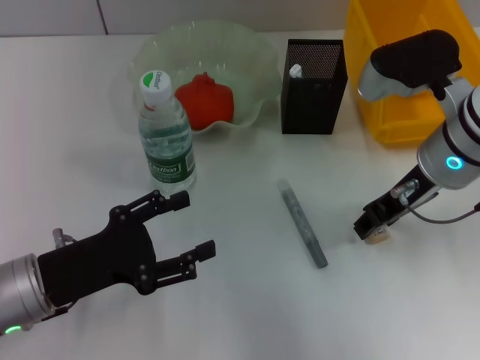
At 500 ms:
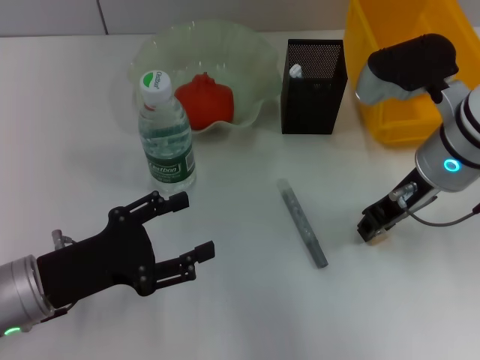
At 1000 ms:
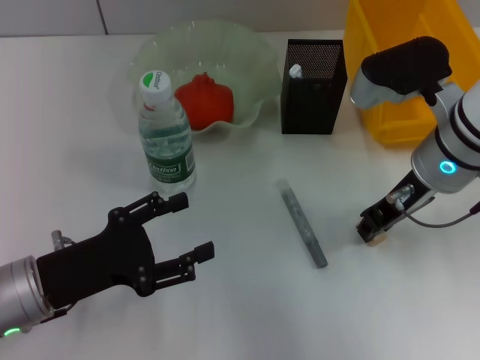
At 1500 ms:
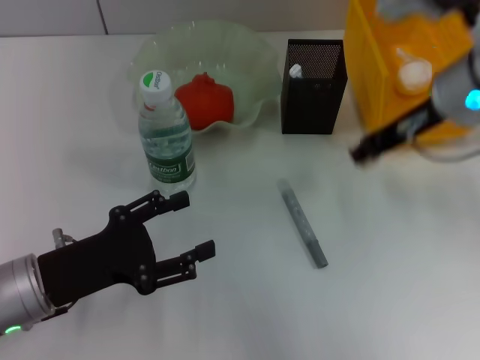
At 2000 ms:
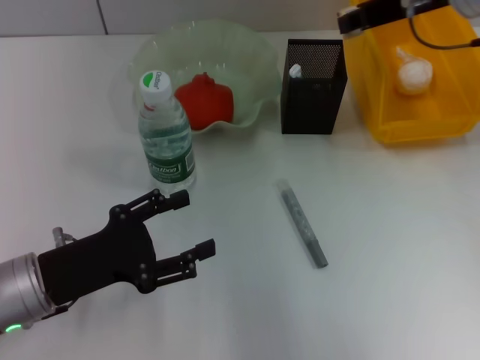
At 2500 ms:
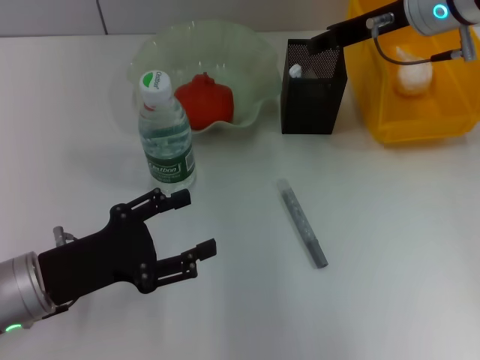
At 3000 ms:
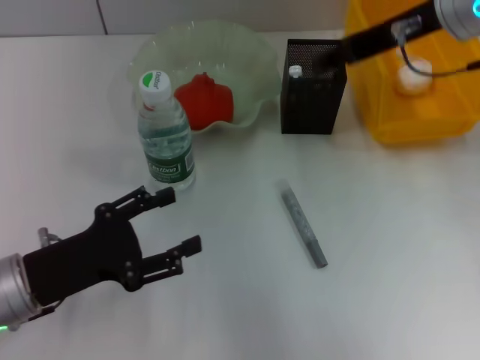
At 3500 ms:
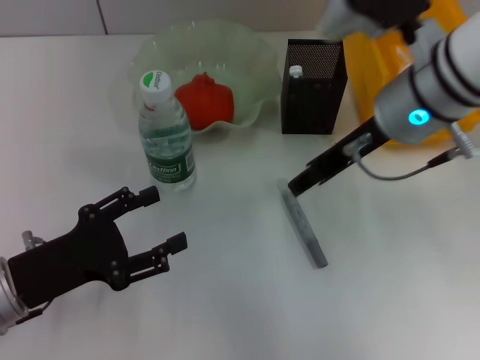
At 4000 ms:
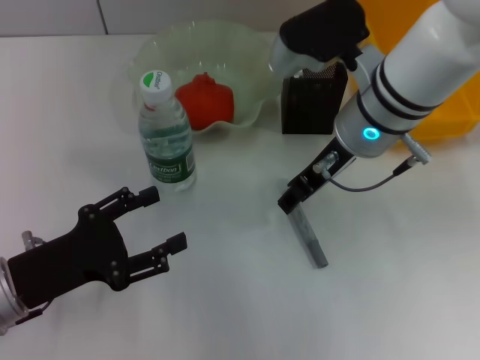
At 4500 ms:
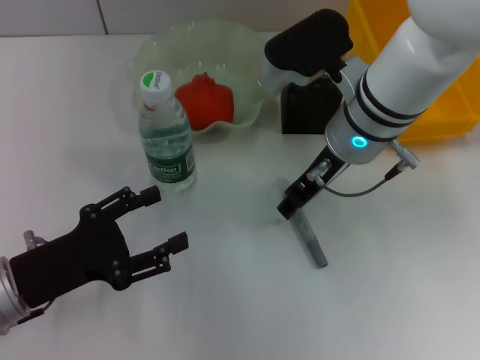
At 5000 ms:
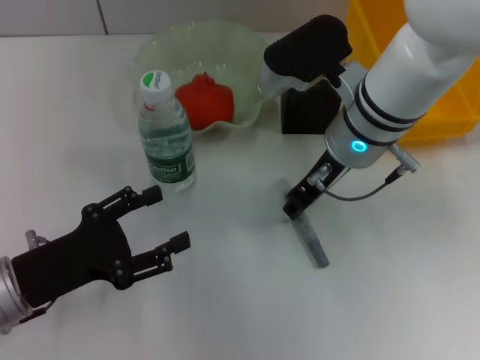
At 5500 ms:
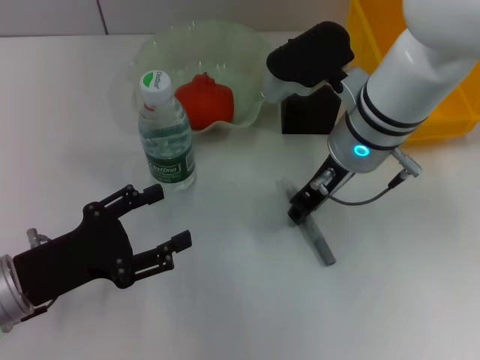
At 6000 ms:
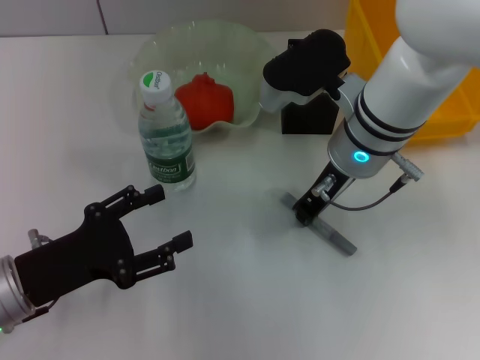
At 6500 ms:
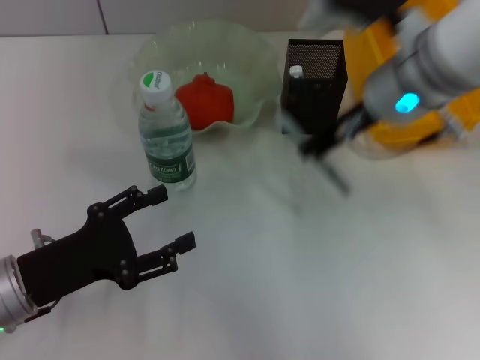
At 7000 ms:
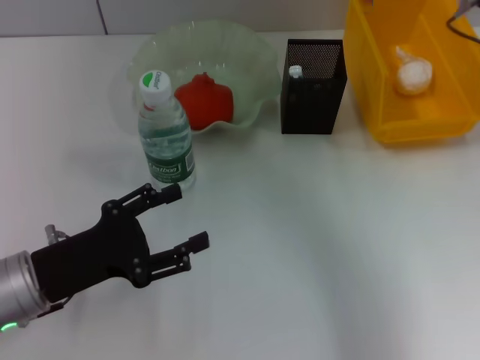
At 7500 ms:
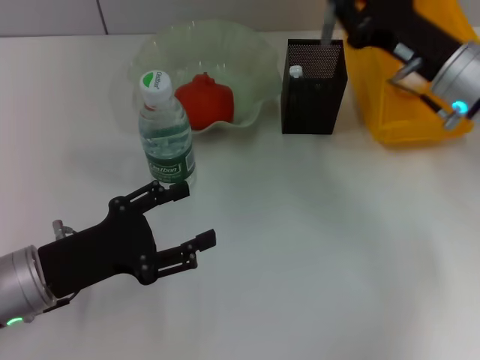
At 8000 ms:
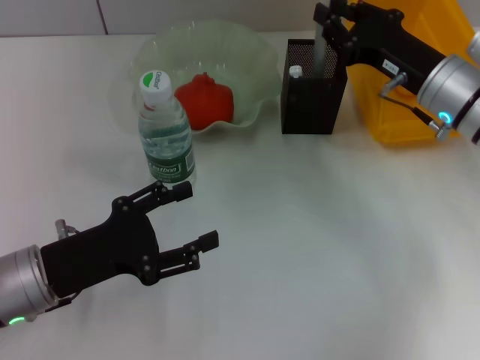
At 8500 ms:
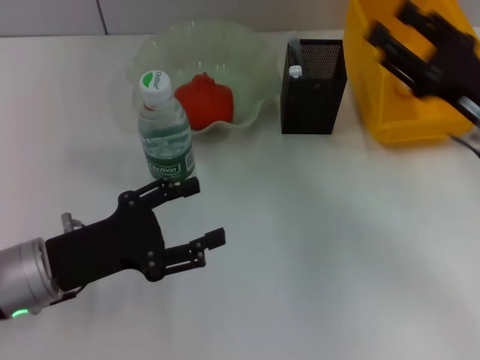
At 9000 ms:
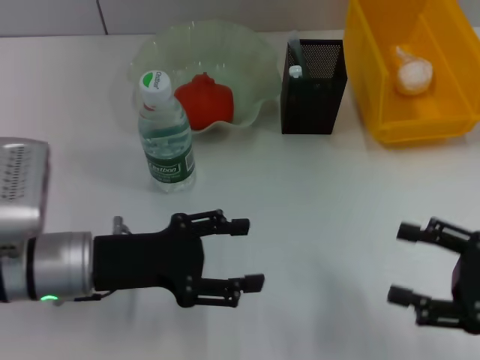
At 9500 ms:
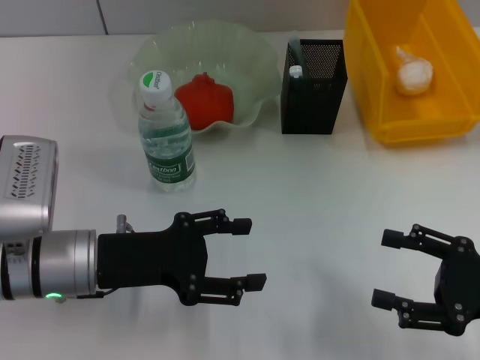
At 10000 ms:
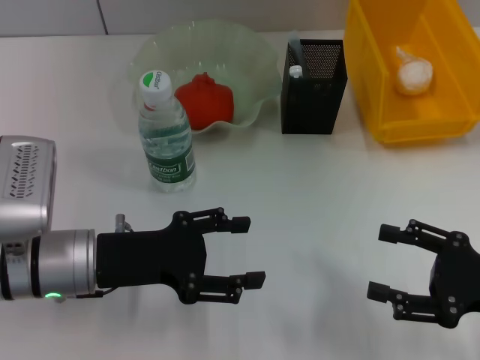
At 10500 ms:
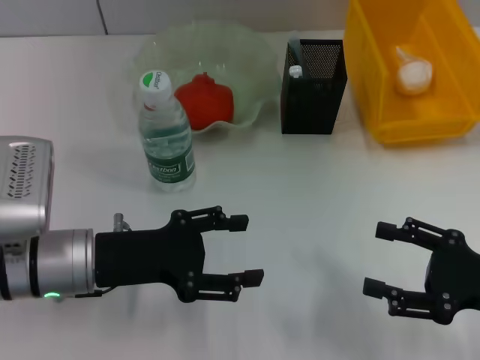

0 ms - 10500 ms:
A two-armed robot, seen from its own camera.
Step, 1000 ms - 2500 ms: Put the eraser into the pen holder with the right hand.
Step, 3000 ms - 6000 ms: Grab the gray glue with the right hand.
Step, 6500 ms - 8000 ms: Place the gray glue into the pen holder with the right hand.
0 ms - 2000 ms: The right gripper moves upward and forward, approximately 10 cm, and closes up.
2000 ms - 4000 ms: The right gripper moves to the left and downward, roughly 10 cm, and opens.
4000 ms - 6500 ms: The right gripper moves approximately 5 cm, and closes.
6500 ms - 8500 ms: The right gripper goes approximately 20 cm to the right, downward and backward, and opens its fingers.
8500 ms - 10500 ms: The right gripper travels backward by approximately 10 cm, and opens.

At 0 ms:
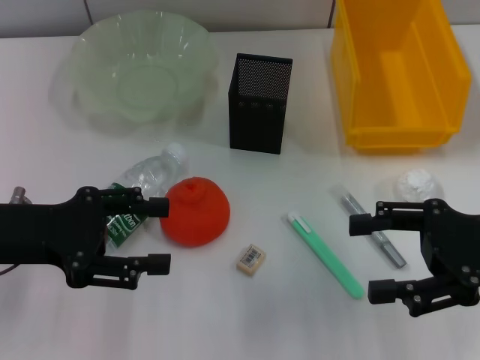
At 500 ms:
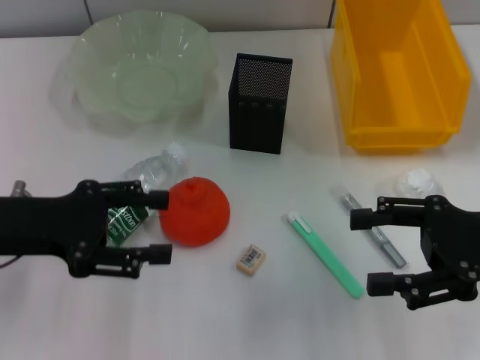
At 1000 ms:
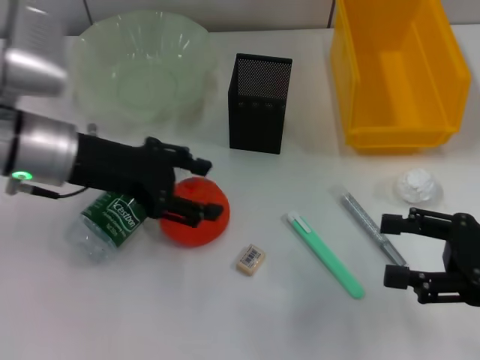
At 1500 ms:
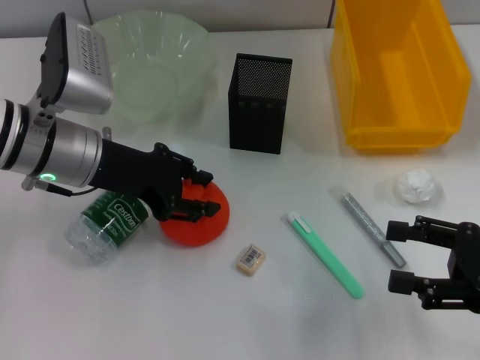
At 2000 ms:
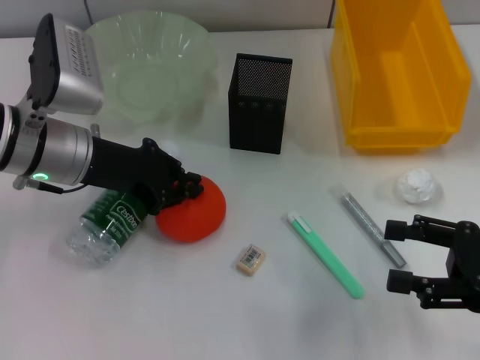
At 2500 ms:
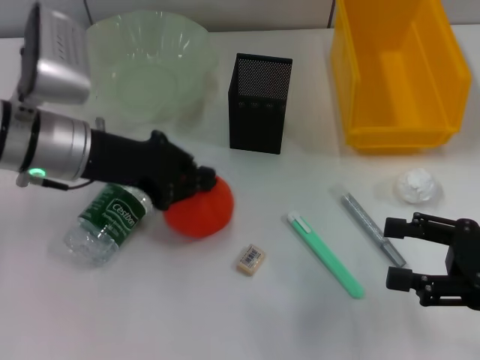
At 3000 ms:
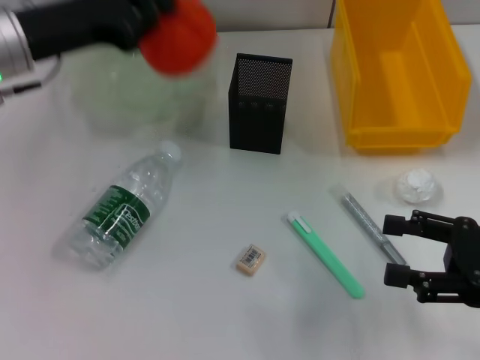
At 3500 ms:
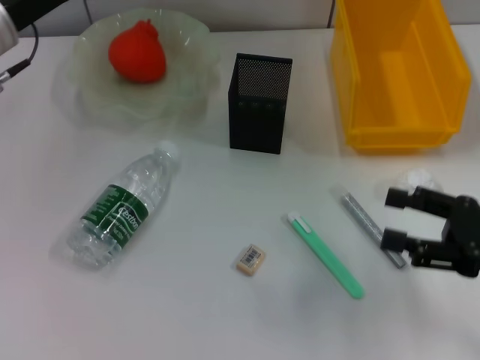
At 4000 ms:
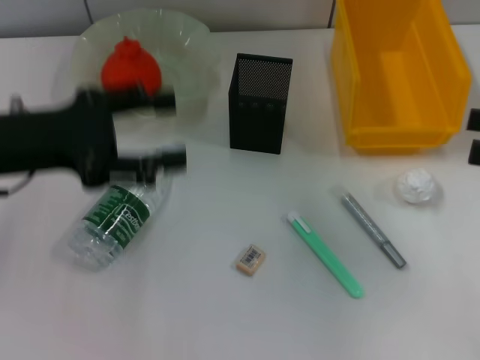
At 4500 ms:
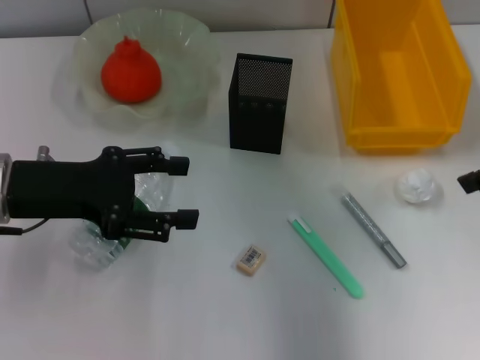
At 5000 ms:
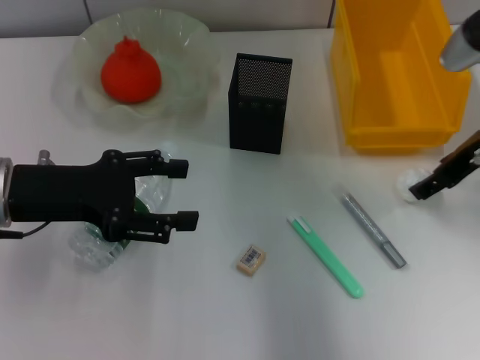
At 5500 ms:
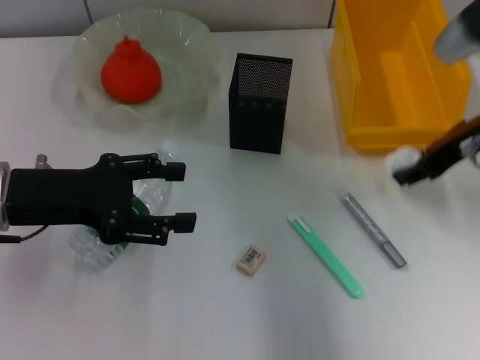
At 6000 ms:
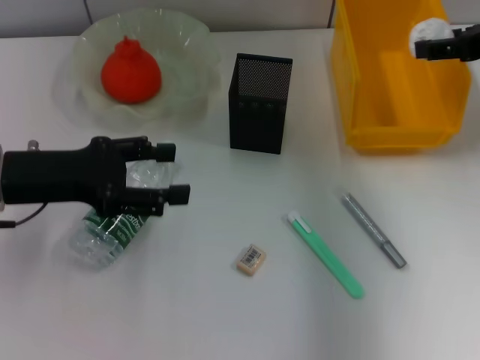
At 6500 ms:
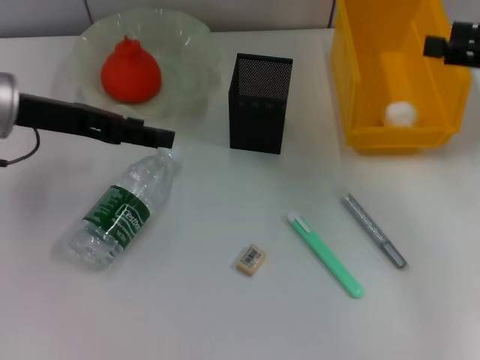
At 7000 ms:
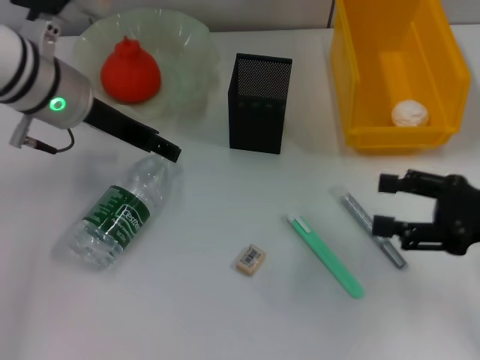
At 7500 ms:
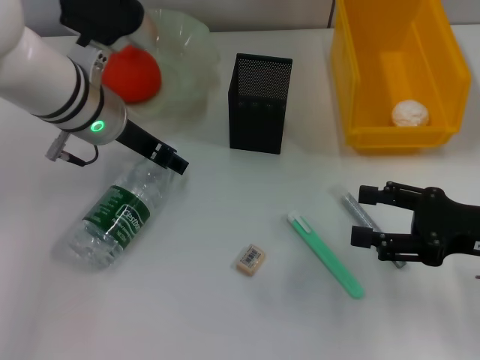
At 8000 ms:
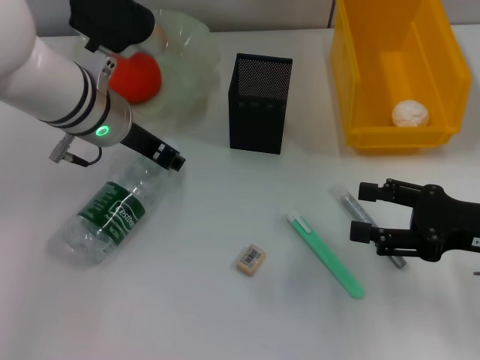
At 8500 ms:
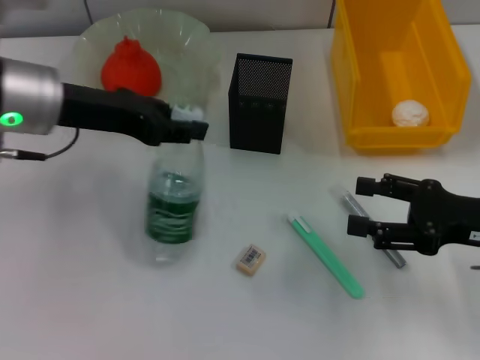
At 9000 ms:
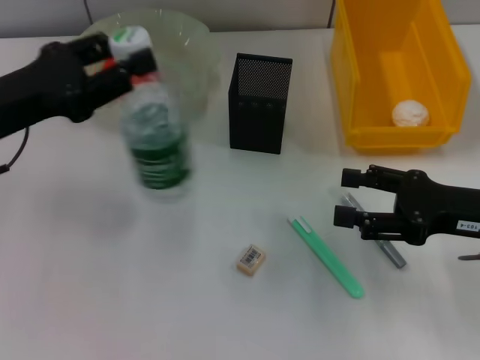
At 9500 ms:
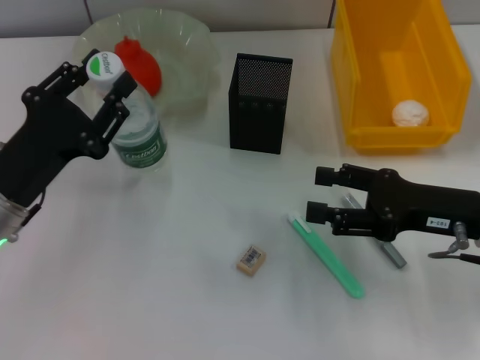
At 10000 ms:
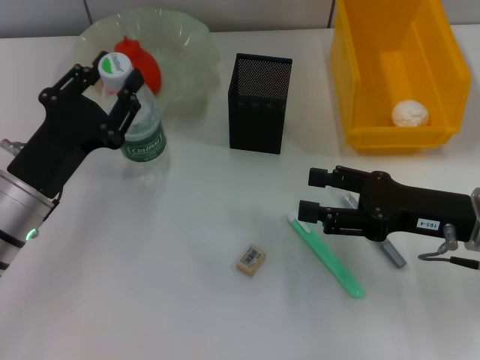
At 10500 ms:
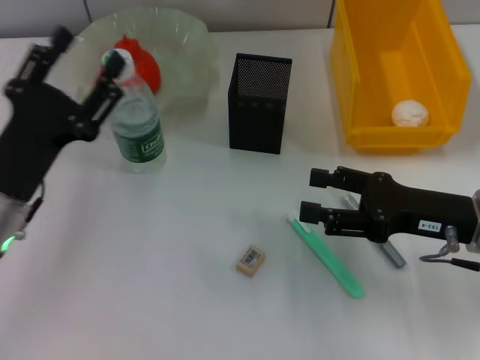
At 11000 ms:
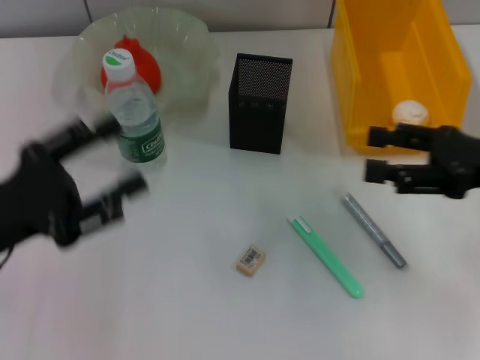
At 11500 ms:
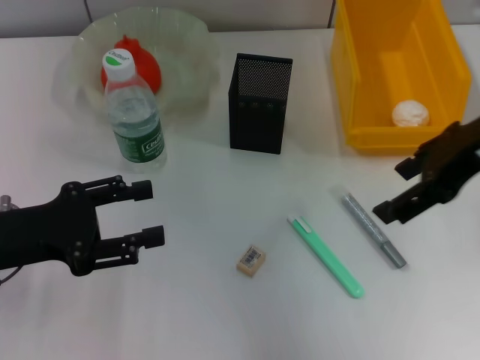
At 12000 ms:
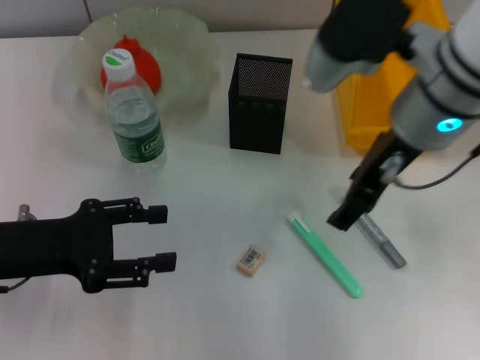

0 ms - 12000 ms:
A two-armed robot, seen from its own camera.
Step, 0 ms - 2000 ms: Grab the orange with the left hand.
Step, 2500 ms - 3500 ms: Place the orange into the fruit bowl with the left hand.
Step, 4000 ms - 5000 ms: Grab the paper ball with the right hand.
Step, 5500 ms - 6000 ms: Place the paper ball into the trash can with the right hand.
Step, 6500 ms - 8000 ms: Grab the water bottle with the left hand.
Step, 8500 ms - 10000 ms: Place the water bottle on the table with the left hand.
0 ms - 2000 ms: The left gripper shifts approximately 10 cm forward and to the right, and closes up, while the right gripper changes place by approximately 5 cm.
2000 ms - 4000 ms: The right gripper shifts some 10 cm upward; the left gripper shifts about 10 cm to the left and backward, and opens its fingers.
4000 ms - 6000 ms: The right gripper shifts about 15 cm forward and to the left, and closes.
6000 ms - 8000 ms: The left gripper heads to the right and forward, covering approximately 15 cm, and closes. Meanwhile the right gripper travels downward and backward by about 20 cm, and opens up.
8000 ms - 10000 ms: The left gripper goes some 15 cm backward, to the left and downward.
10000 ms - 12000 ms: The left gripper ends up roughly 5 cm from where it was. The right gripper goes some 20 cm upward, to the left and forward.

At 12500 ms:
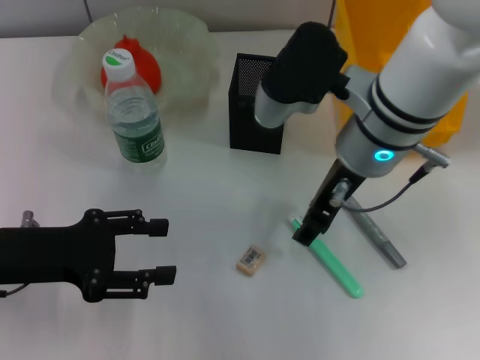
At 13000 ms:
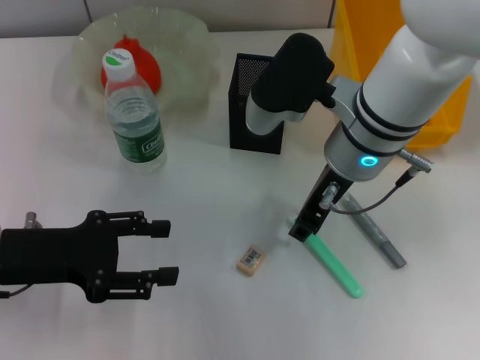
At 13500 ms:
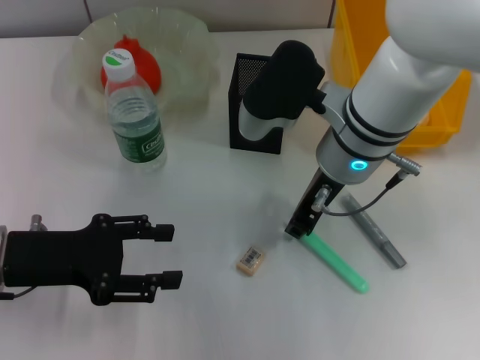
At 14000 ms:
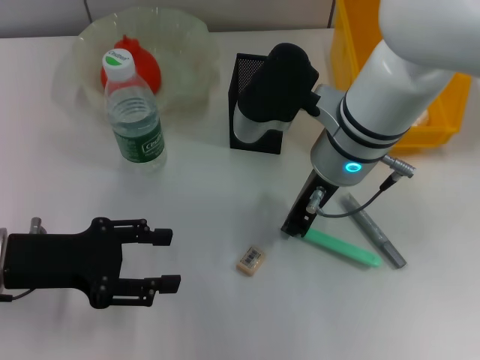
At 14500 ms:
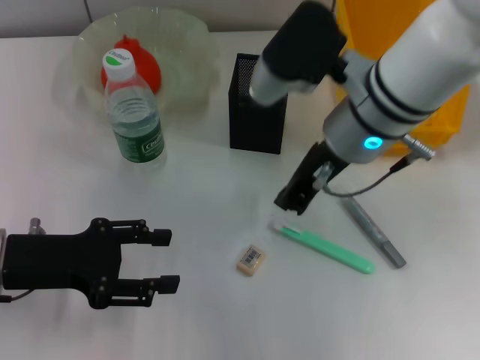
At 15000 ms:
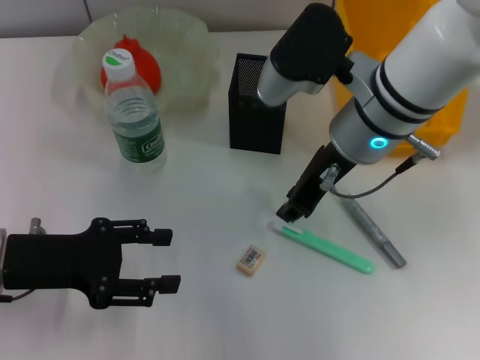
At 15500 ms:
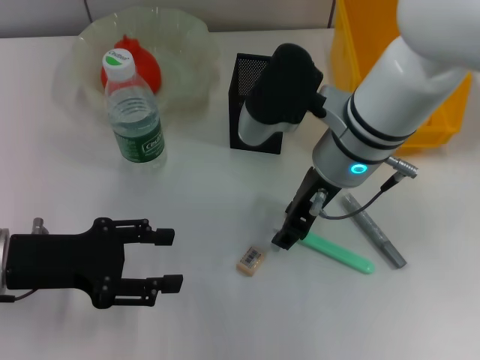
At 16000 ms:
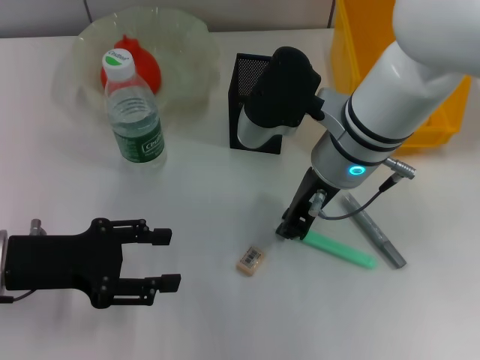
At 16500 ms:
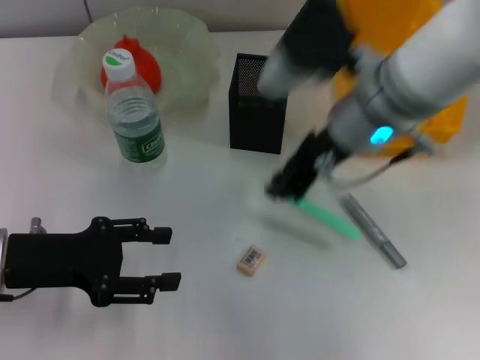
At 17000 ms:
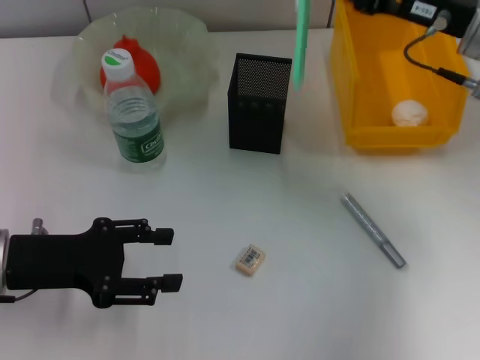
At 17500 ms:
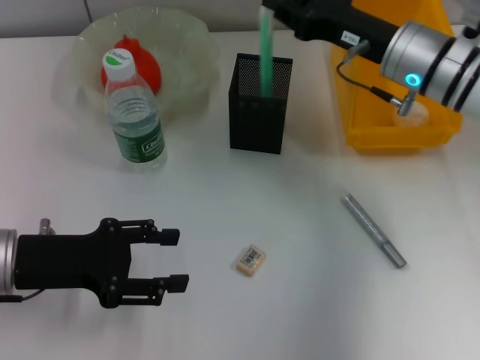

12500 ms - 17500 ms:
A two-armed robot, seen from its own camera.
Step, 12500 ms - 16000 ms: Grab the blue utility knife with the right hand.
12500 ms - 15000 ms: The right gripper closes up.
15000 ms - 17500 ms: The right gripper goes some 10 cm to the right and forward, and opens, then closes once more.
